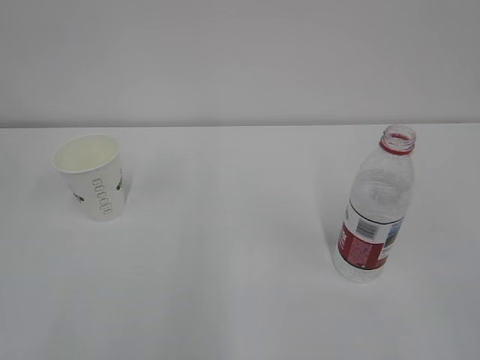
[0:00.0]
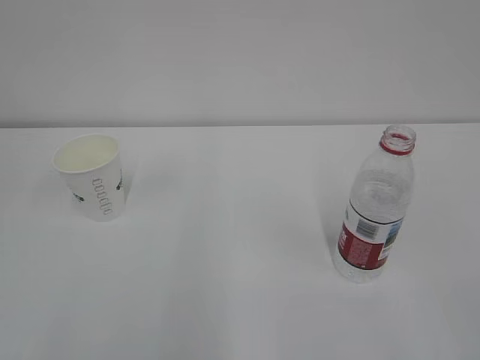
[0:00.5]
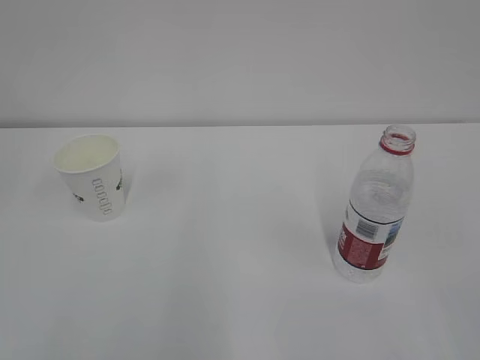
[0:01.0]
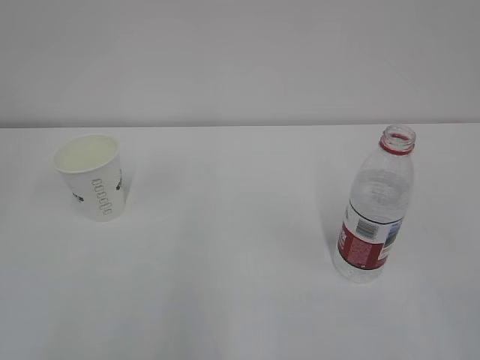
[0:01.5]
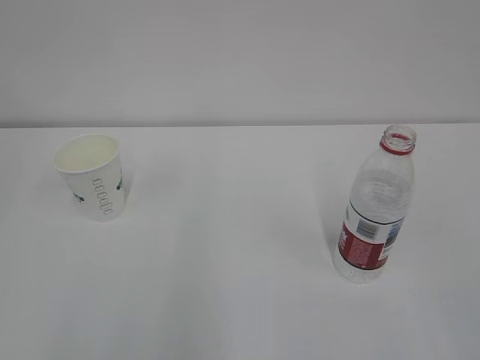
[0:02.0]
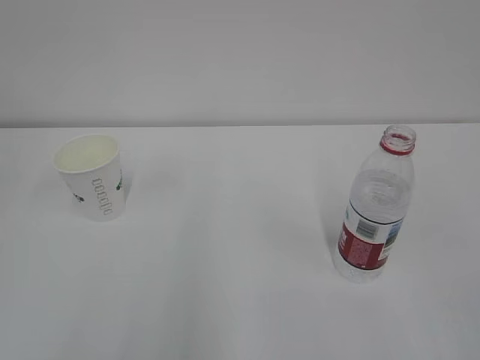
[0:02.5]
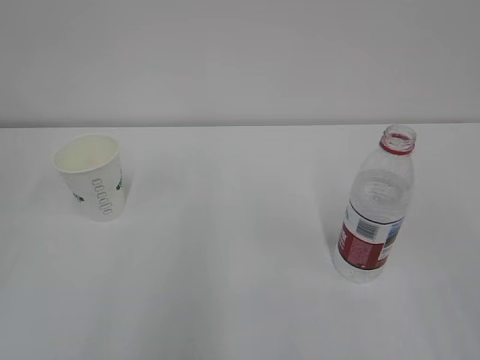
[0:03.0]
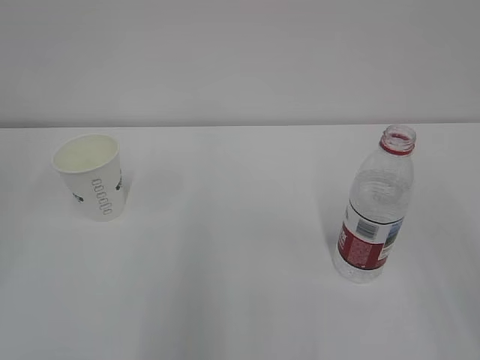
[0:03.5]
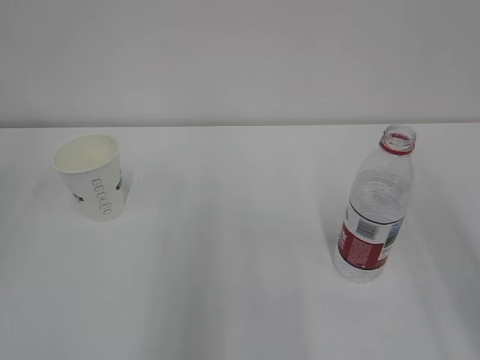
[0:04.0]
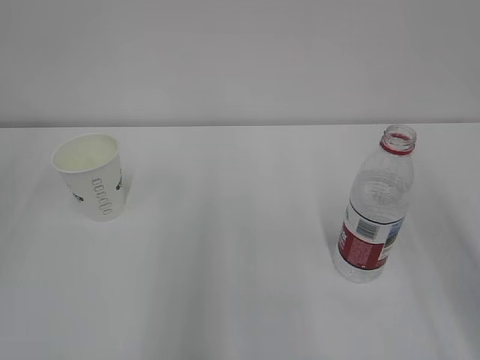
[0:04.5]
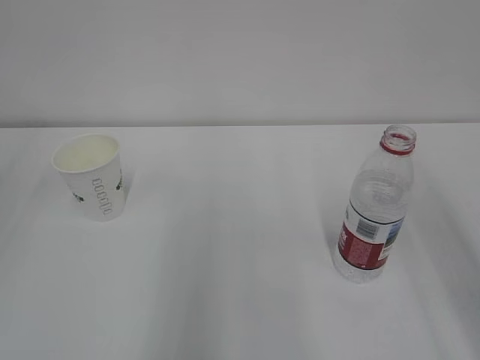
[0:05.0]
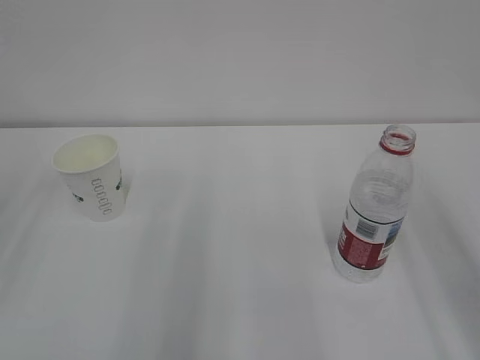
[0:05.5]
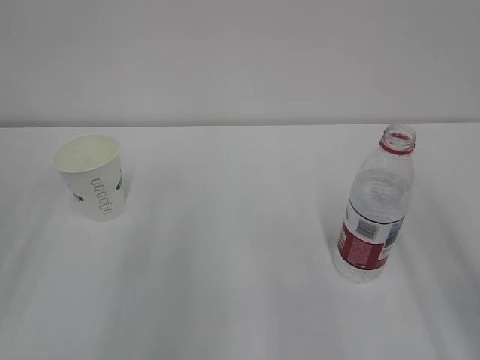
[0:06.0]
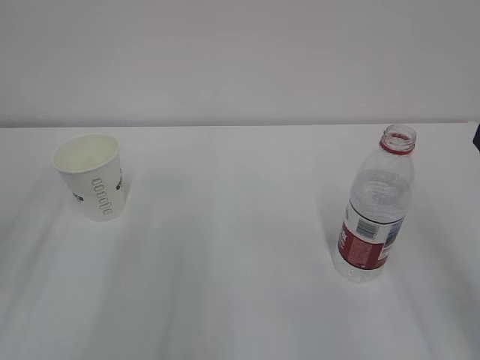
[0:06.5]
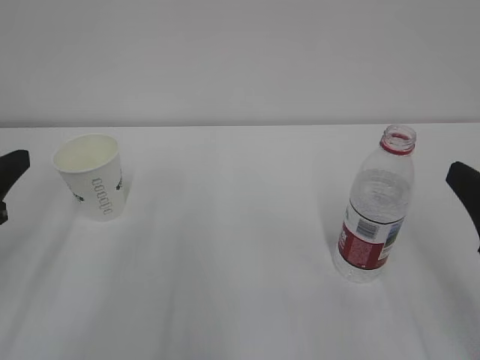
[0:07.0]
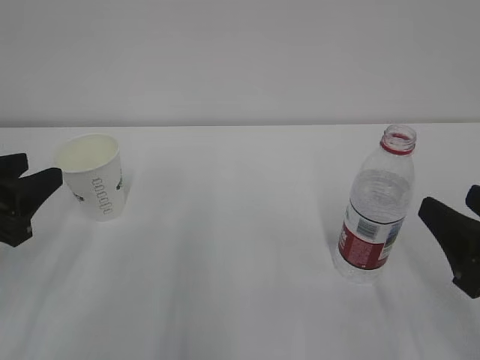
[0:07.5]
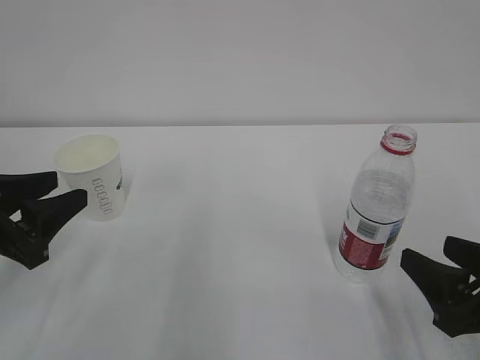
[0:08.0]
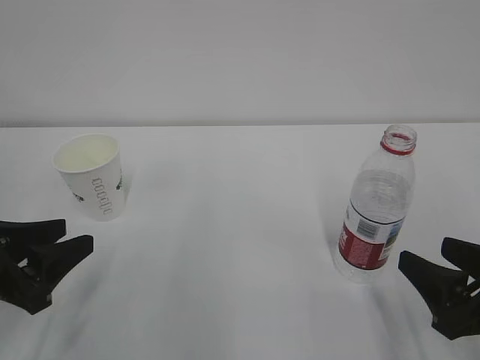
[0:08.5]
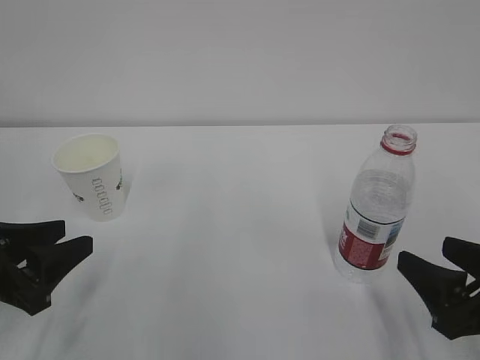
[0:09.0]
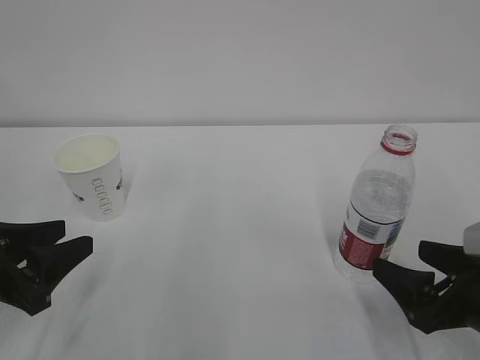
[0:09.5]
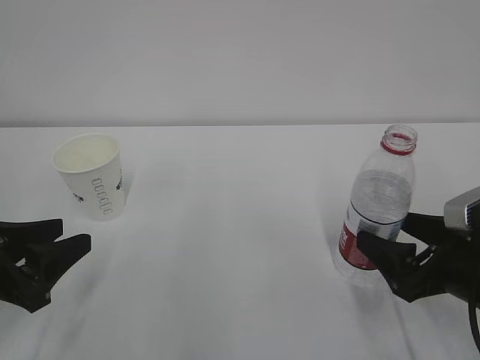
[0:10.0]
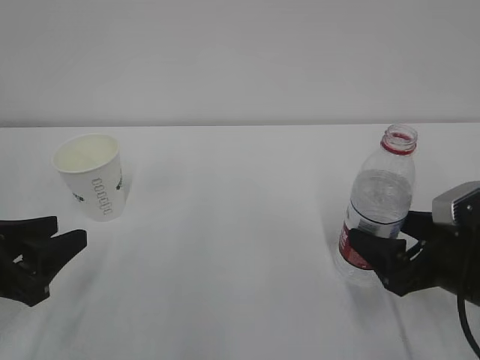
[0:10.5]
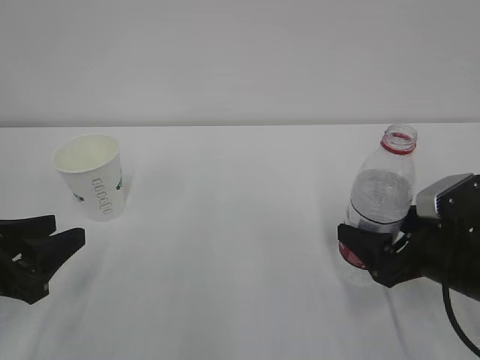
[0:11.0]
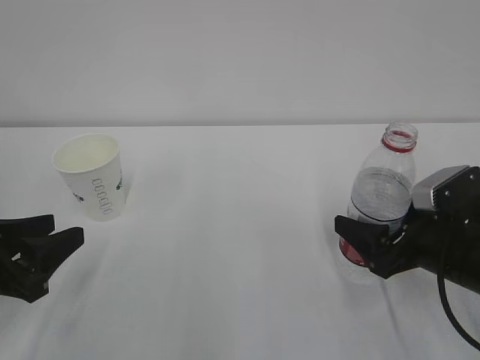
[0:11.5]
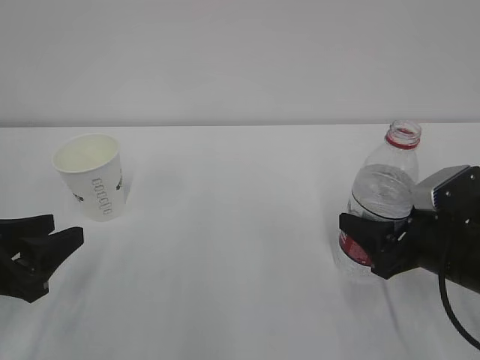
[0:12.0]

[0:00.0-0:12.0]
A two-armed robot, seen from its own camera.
0:06.0 to 0:08.0: The left gripper goes approximately 10 cm downward and forward. The right gripper shifts some 15 cm downward.
0:08.0 to 0:10.0: The right gripper heads forward, covering about 5 cm, and opens.
0:10.0 to 0:12.0: The right gripper closes up.

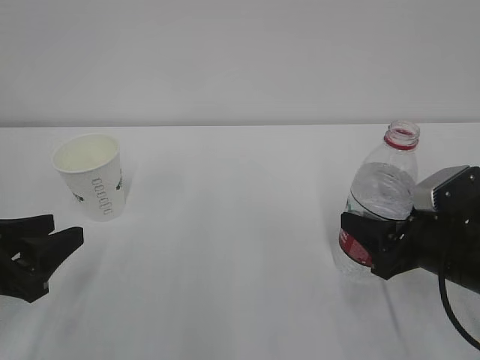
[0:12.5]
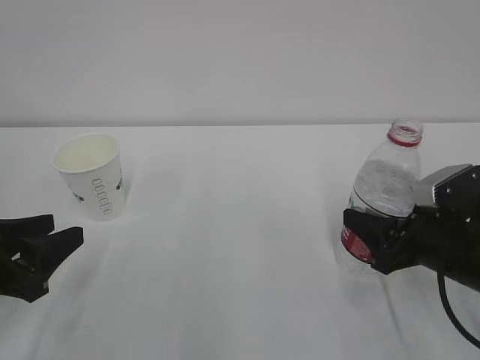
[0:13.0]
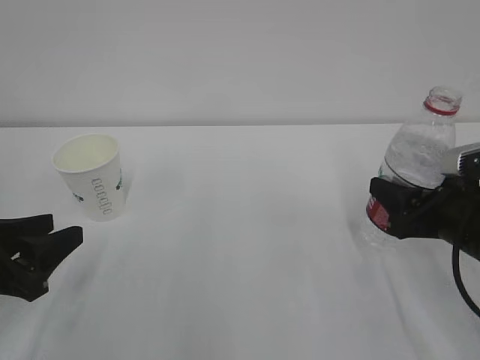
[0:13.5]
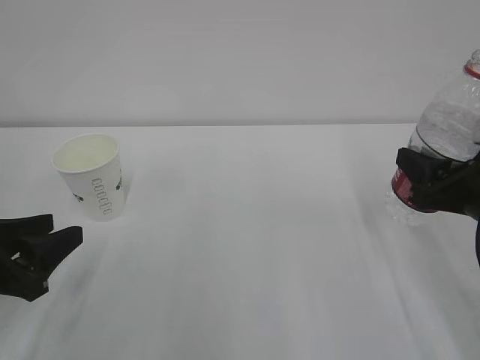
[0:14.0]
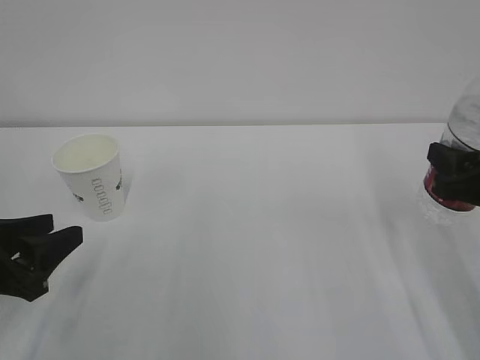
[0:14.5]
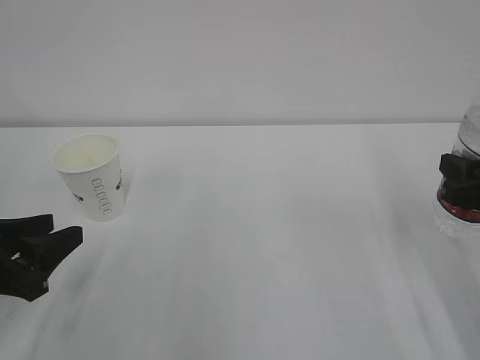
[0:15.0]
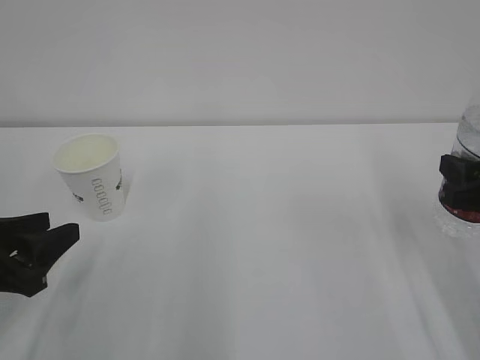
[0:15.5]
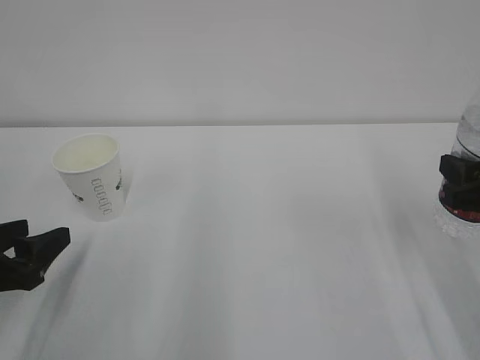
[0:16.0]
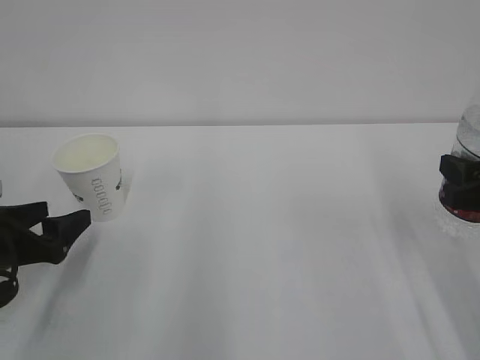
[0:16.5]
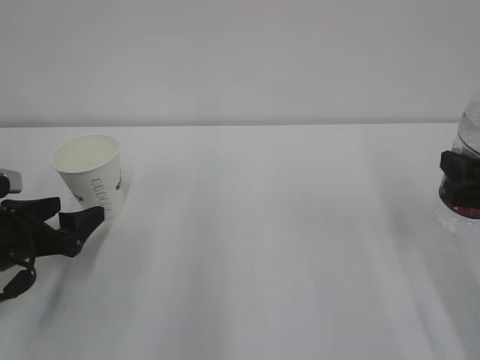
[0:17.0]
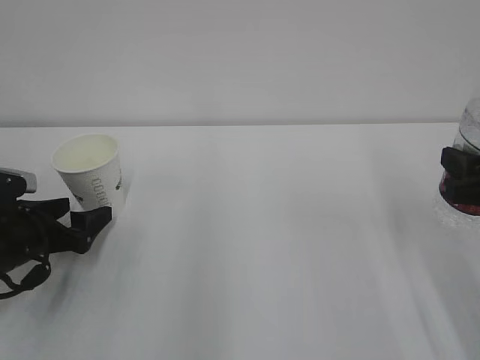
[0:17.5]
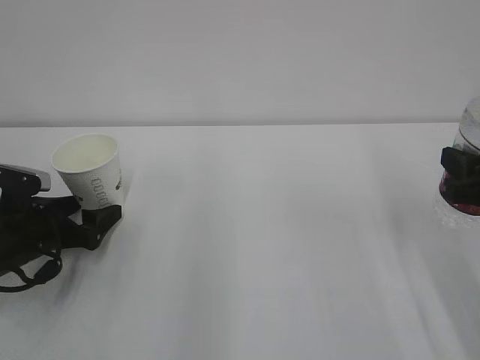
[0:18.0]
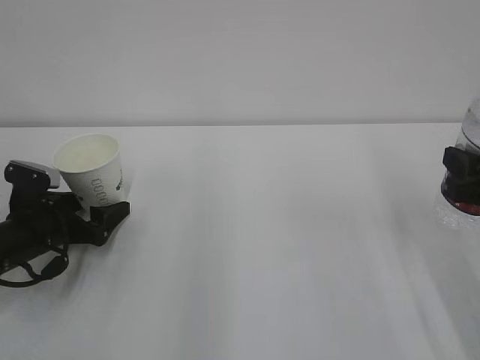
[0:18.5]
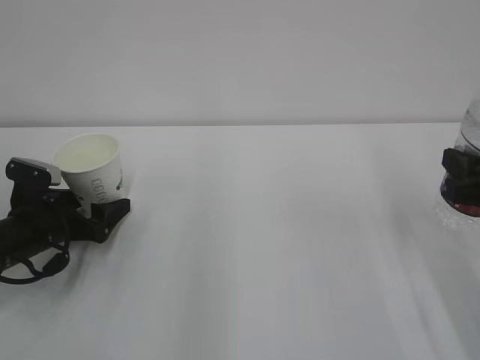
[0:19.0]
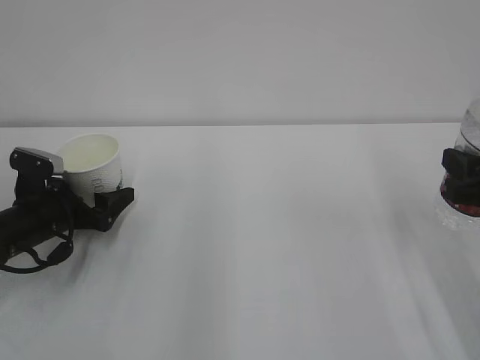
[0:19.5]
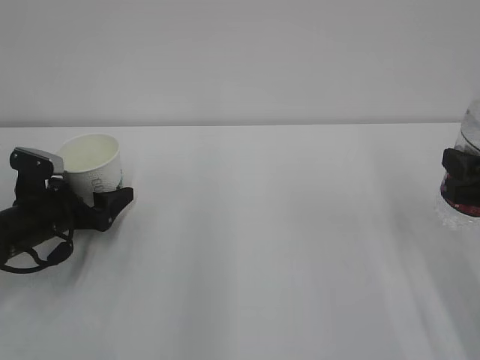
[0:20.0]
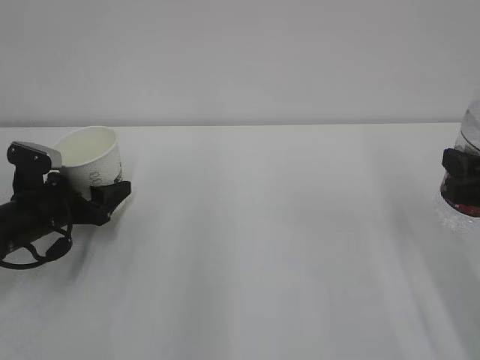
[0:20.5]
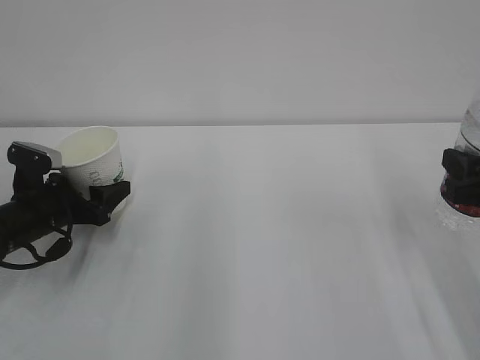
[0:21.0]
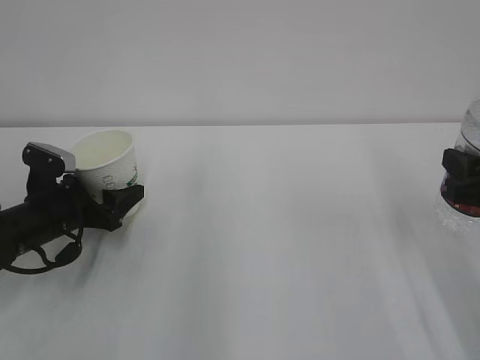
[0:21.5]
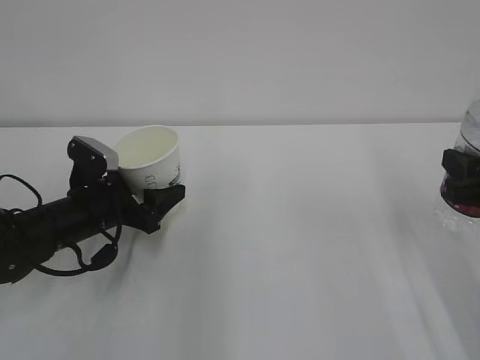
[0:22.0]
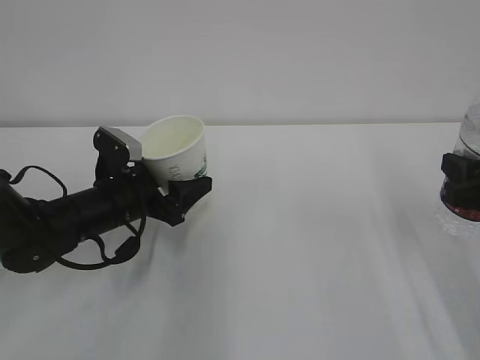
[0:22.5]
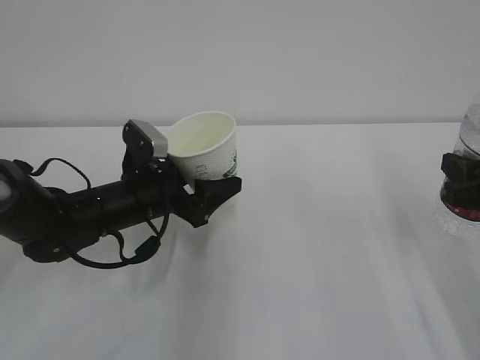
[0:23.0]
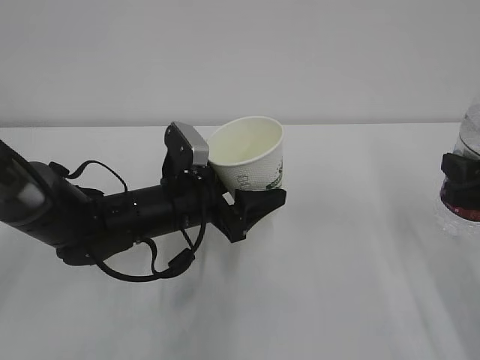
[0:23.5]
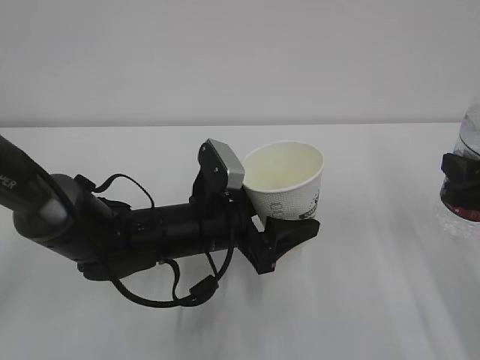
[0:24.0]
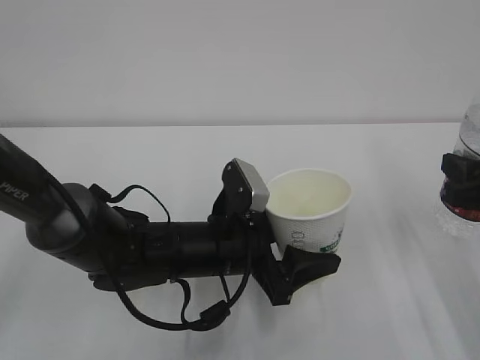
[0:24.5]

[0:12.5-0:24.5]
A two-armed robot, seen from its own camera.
0:12.5 to 0:14.5: The right gripper shifts some 10 cm upward.
0:14.5 to 0:16.5: The left gripper ends up about 5 cm from where it was, and opens.
0:16.5 to 0:18.5: The left gripper travels forward and downward by some 10 cm.
0:18.5 to 0:20.5: The left gripper closes up.
0:20.5 to 0:22.5: The left gripper moves to the right, roughly 10 cm.
0:22.5 to 0:24.5: The left gripper is displaced to the right and backward by roughly 15 cm.

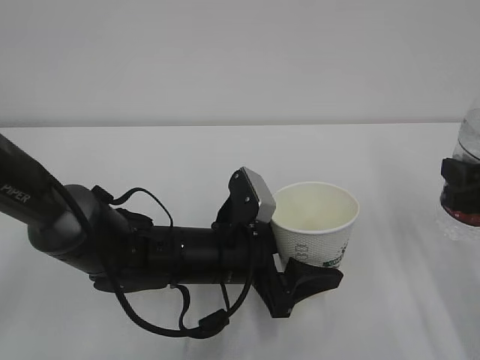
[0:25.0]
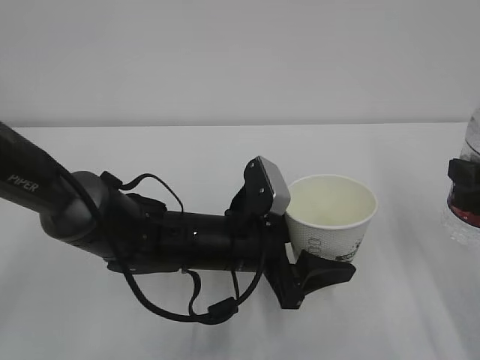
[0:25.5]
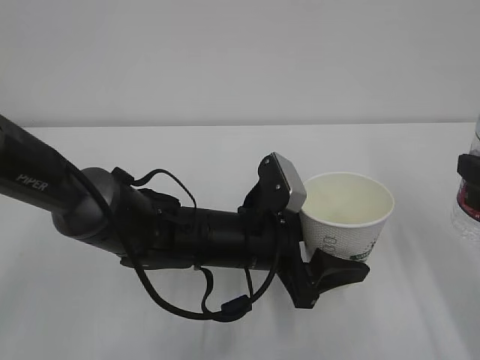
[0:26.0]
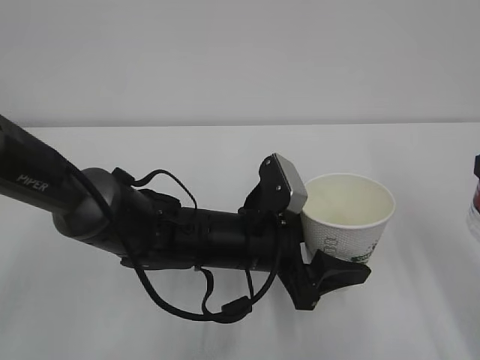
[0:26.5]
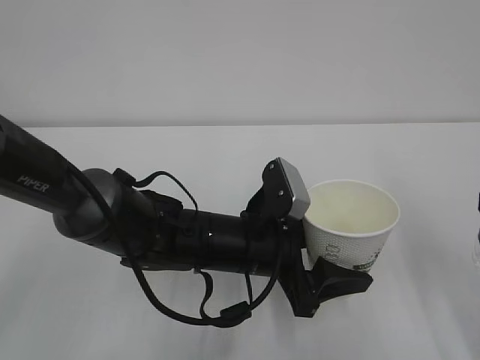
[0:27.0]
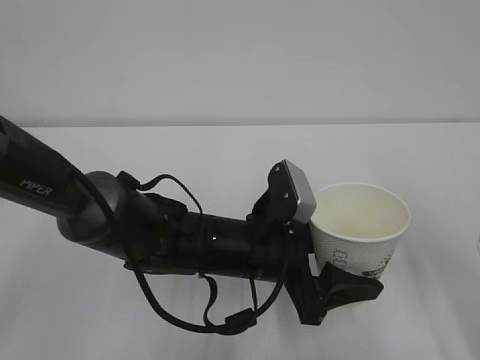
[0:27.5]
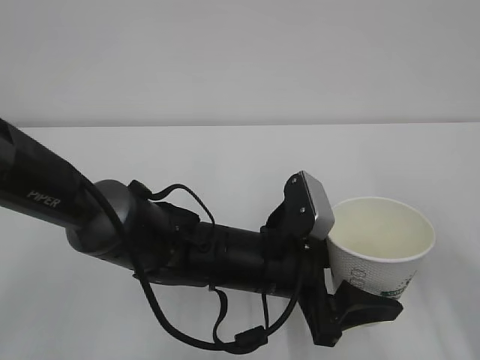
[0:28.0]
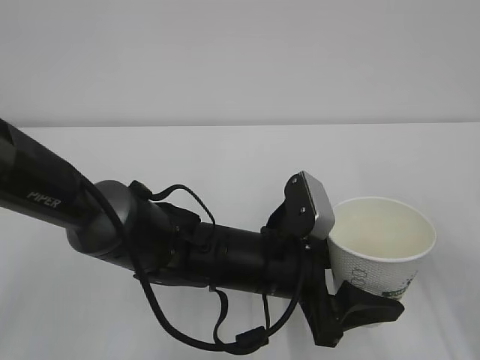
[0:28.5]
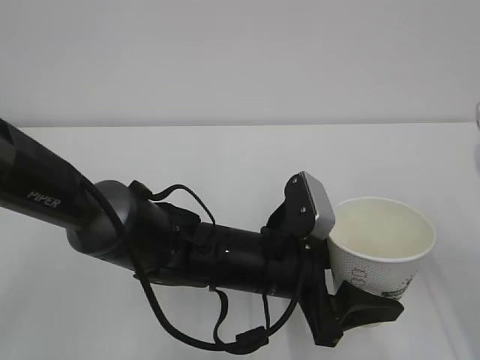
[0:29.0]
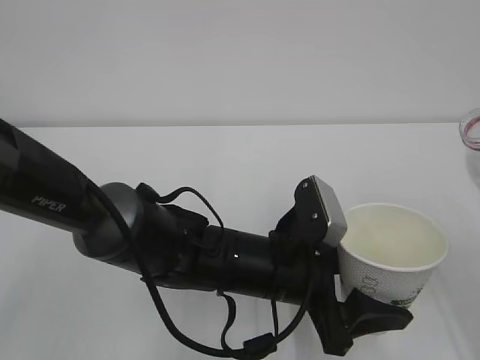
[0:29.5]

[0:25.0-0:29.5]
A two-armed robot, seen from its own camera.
0:25.0 to 0:27.0: The right gripper shifts roughly 5 cm backward.
